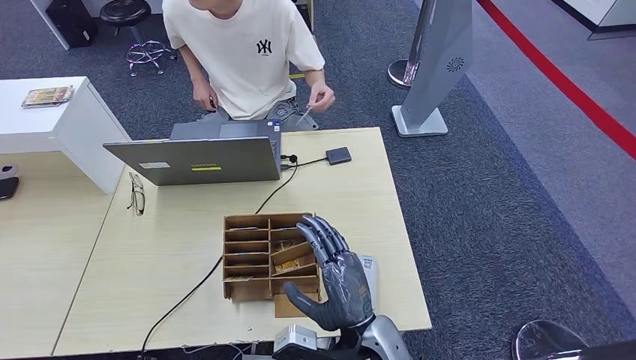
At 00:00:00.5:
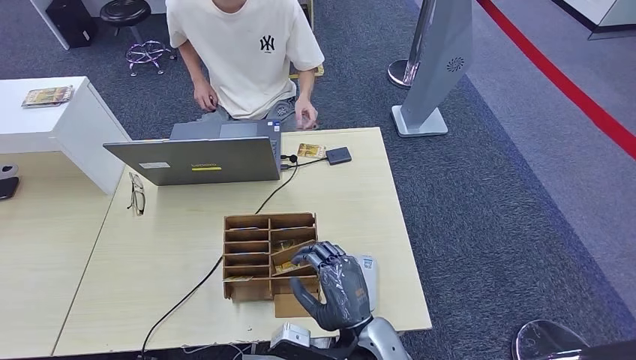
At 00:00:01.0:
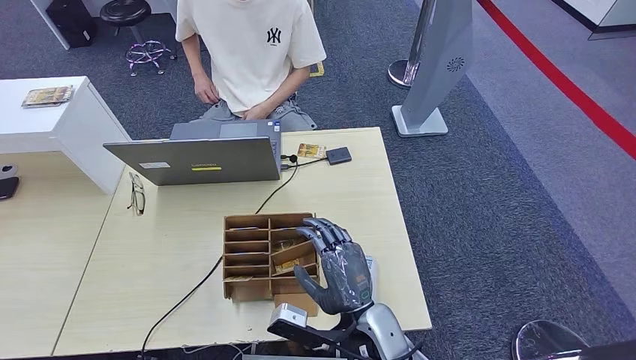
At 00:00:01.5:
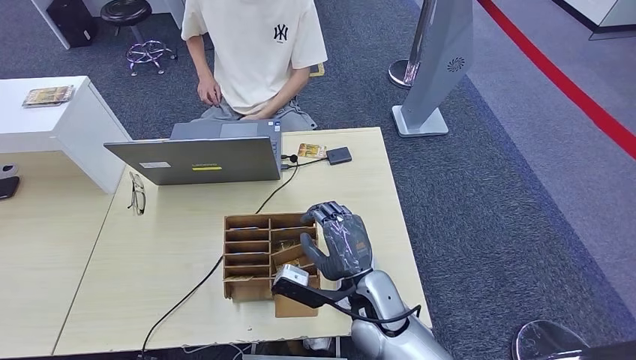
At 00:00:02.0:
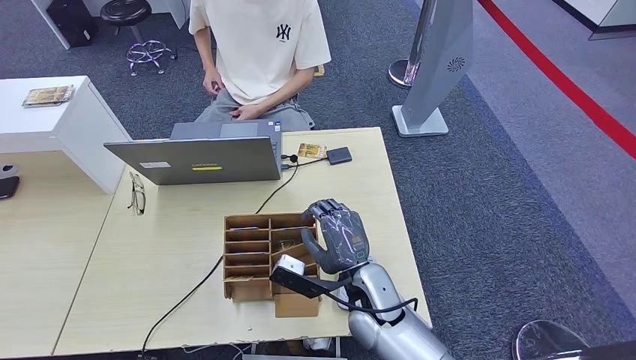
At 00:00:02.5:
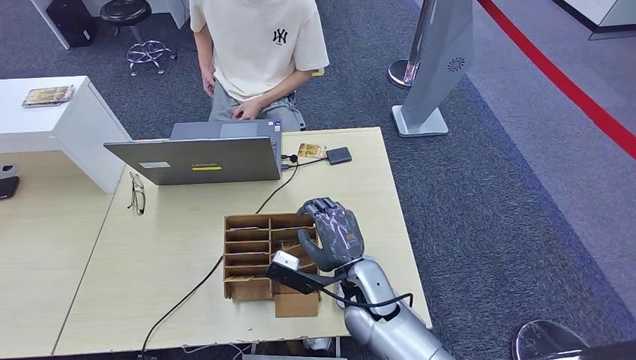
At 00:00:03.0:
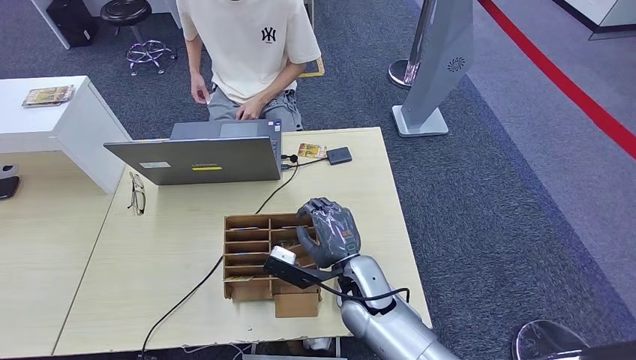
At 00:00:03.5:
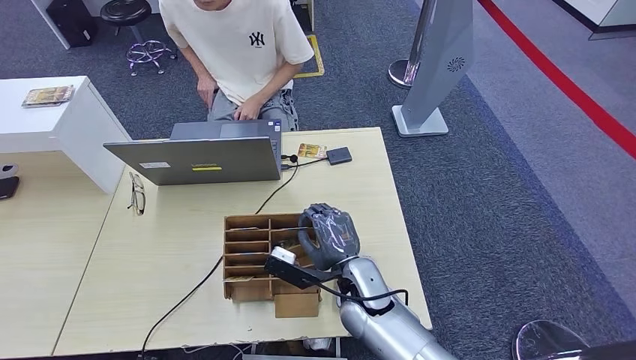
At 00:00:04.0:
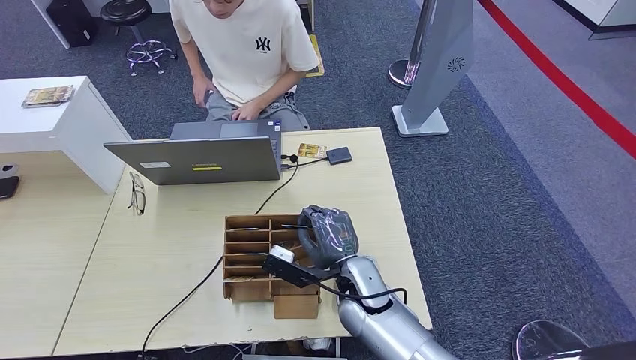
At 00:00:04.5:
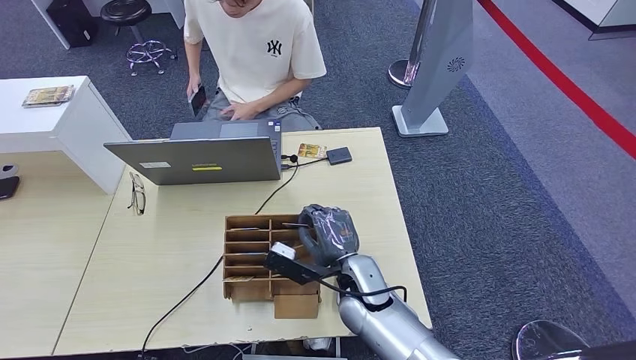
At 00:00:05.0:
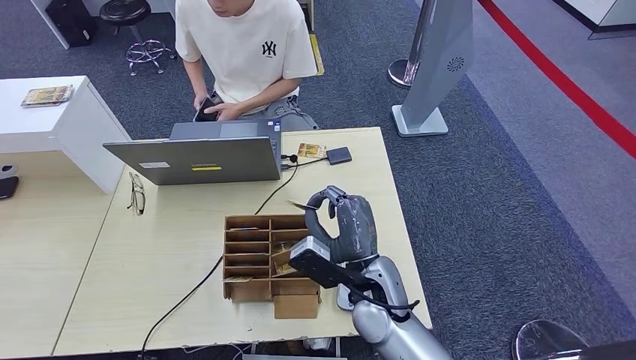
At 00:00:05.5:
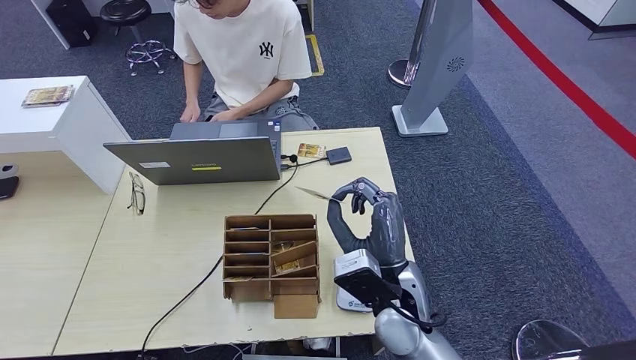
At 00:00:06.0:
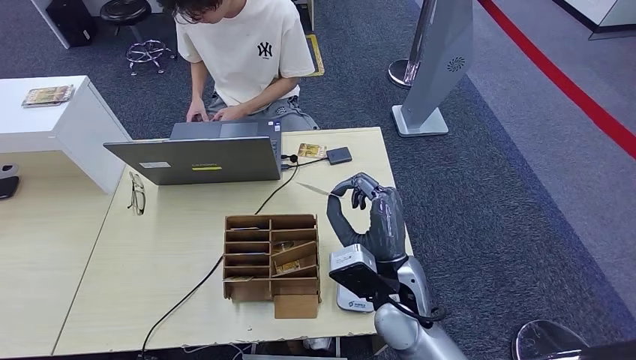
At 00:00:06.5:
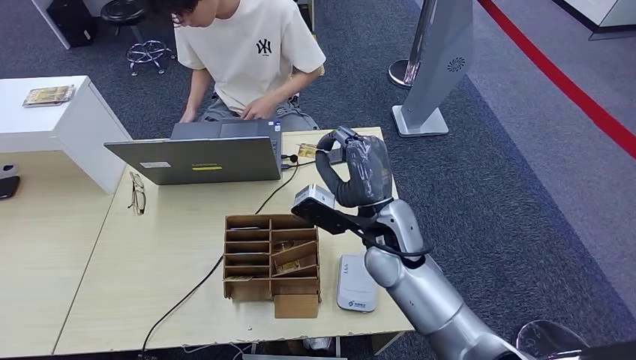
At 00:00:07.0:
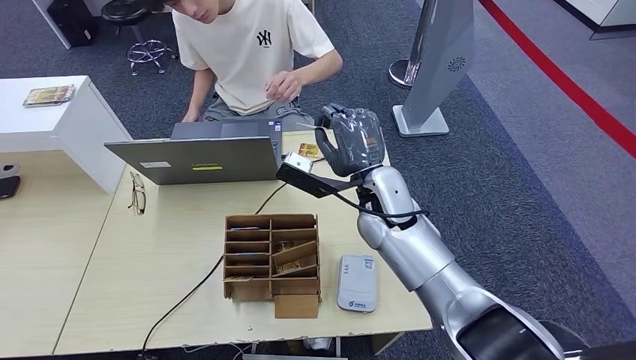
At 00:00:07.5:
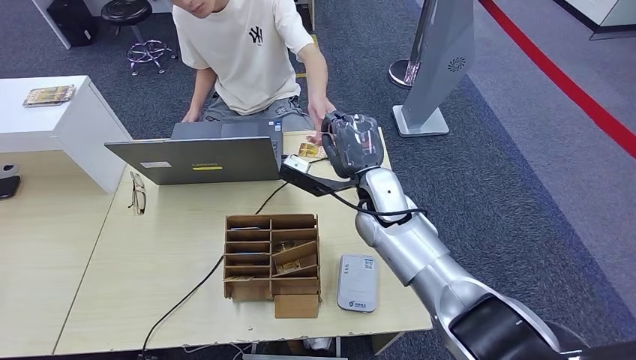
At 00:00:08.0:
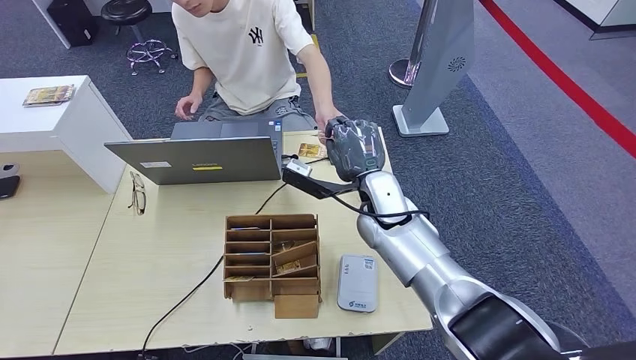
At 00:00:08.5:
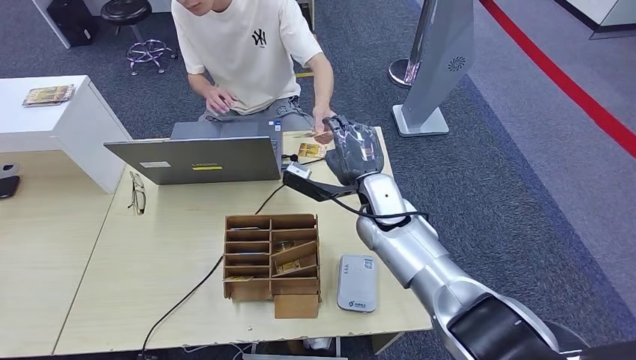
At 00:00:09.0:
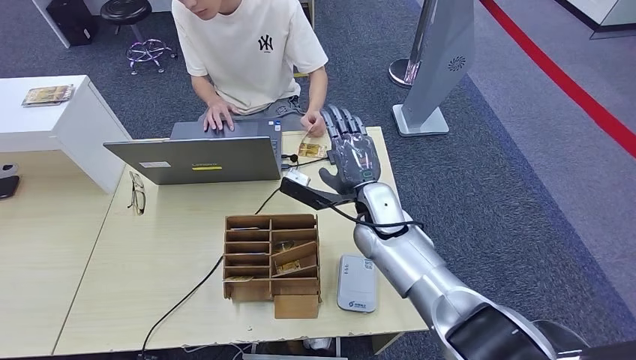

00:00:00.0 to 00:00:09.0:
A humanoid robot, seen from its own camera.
Step, 00:00:03.0 to 00:00:05.5: Pick up the room key from the key card box.
Step, 00:00:06.5 to 00:00:09.0: Hand the room key to the person.
00:00:00.0 to 00:00:02.0: The right hand is displaced forward by approximately 10 cm.
00:00:02.0 to 00:00:04.5: There are only small adjustments of the hands.
00:00:04.5 to 00:00:07.0: The right hand moves upward and forward, about 15 cm.
00:00:07.0 to 00:00:09.0: The right hand heads downward, covering roughly 5 cm.

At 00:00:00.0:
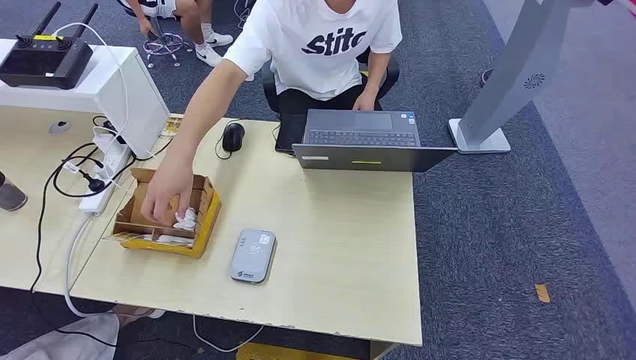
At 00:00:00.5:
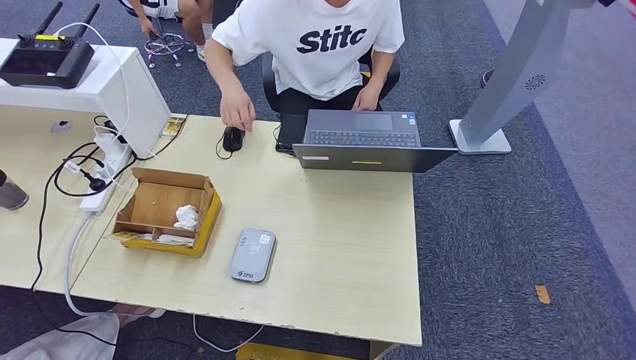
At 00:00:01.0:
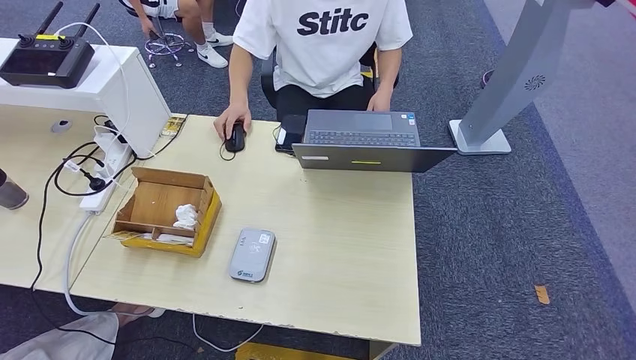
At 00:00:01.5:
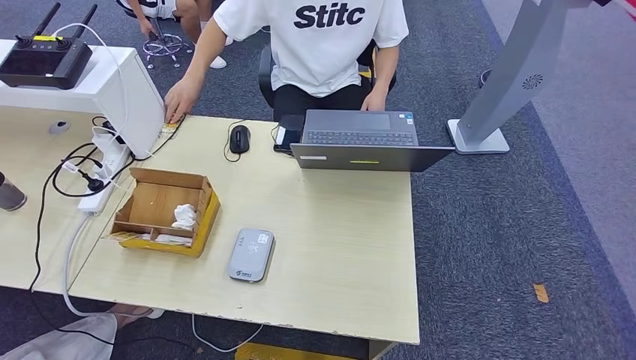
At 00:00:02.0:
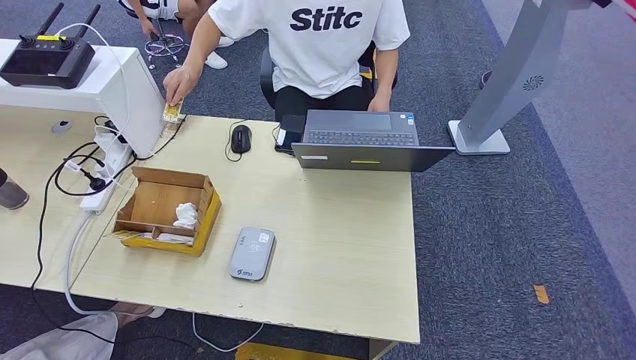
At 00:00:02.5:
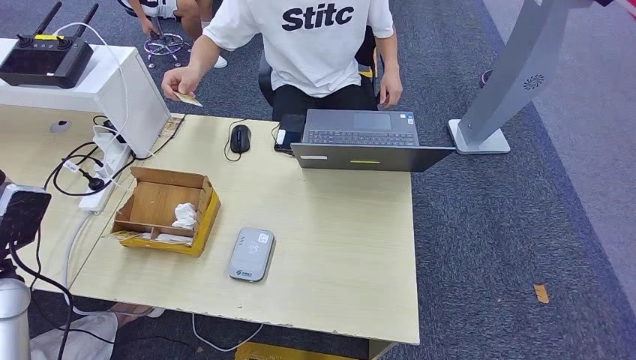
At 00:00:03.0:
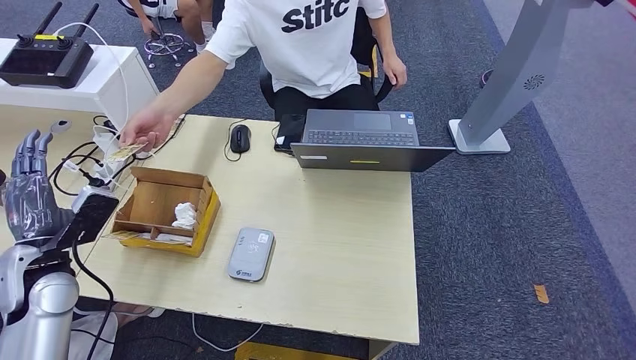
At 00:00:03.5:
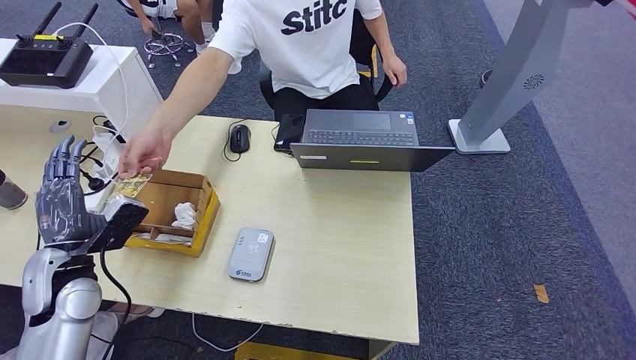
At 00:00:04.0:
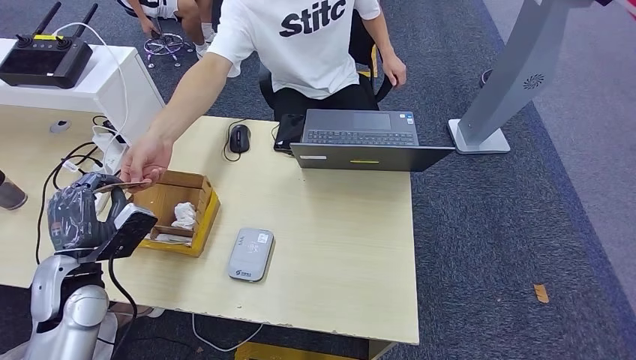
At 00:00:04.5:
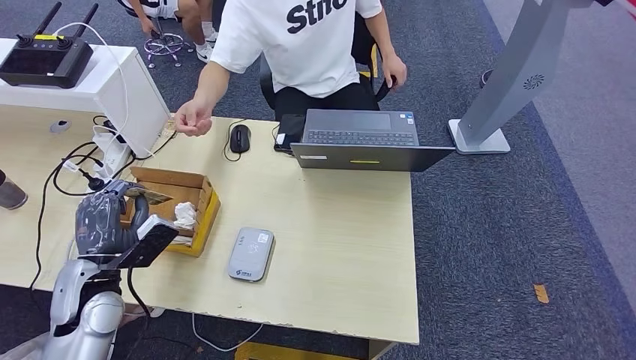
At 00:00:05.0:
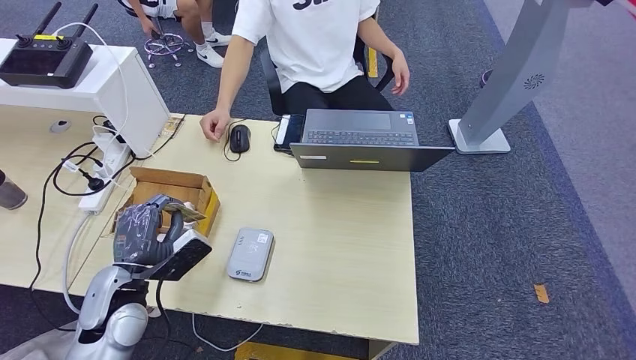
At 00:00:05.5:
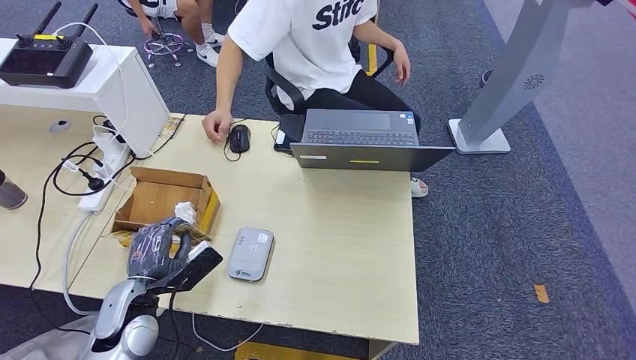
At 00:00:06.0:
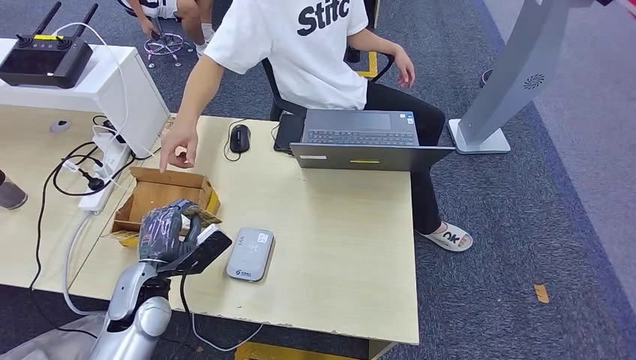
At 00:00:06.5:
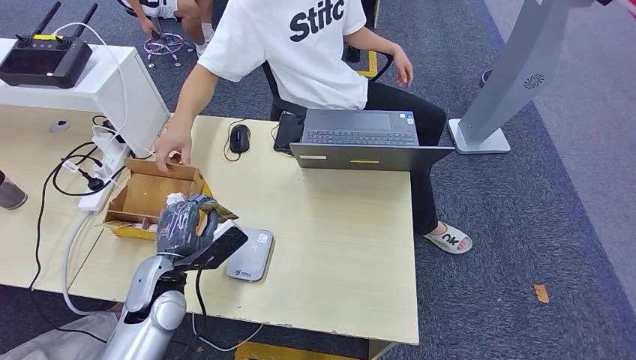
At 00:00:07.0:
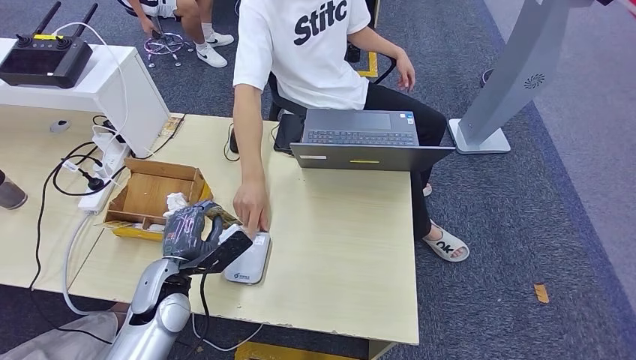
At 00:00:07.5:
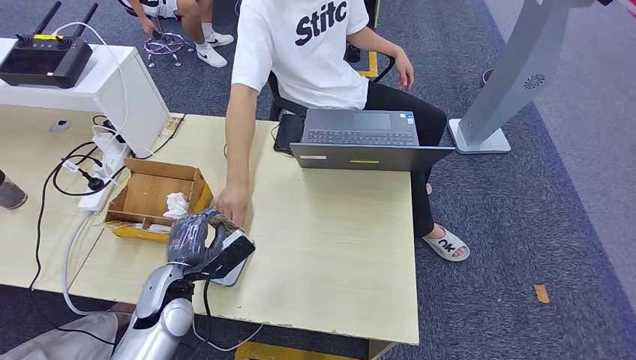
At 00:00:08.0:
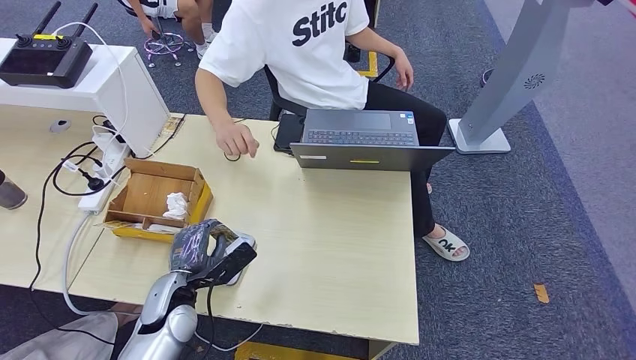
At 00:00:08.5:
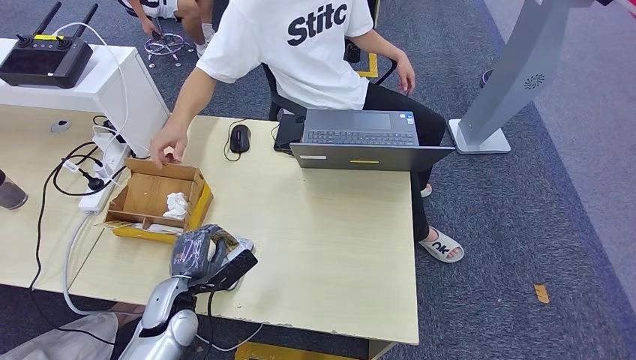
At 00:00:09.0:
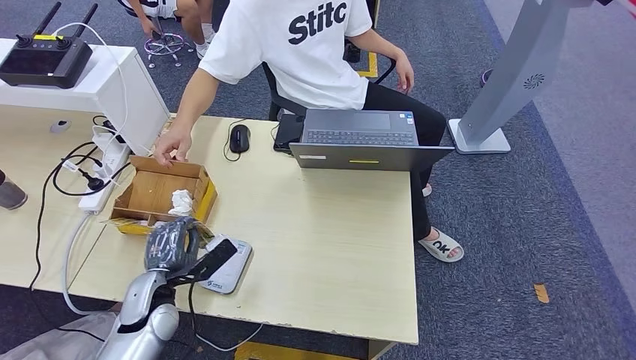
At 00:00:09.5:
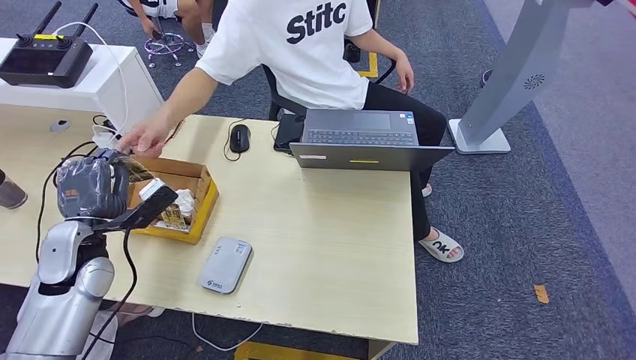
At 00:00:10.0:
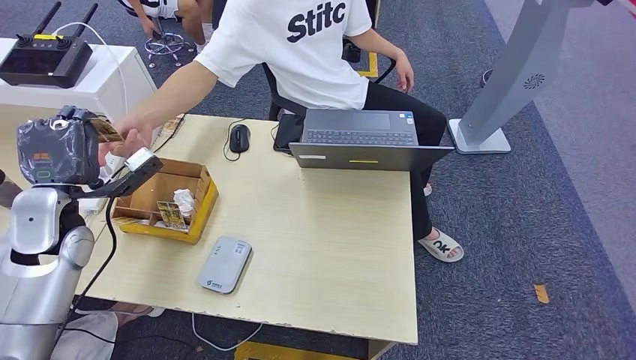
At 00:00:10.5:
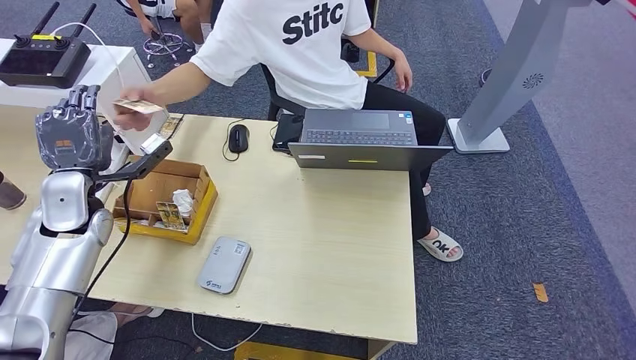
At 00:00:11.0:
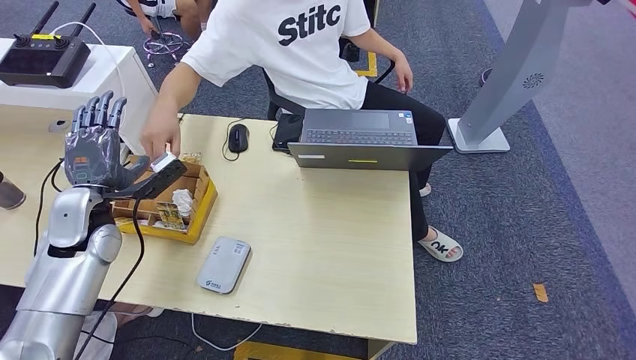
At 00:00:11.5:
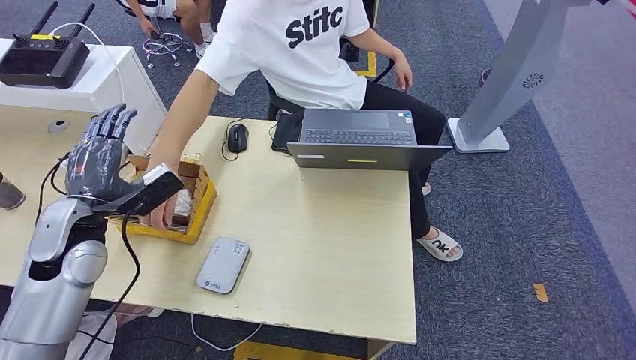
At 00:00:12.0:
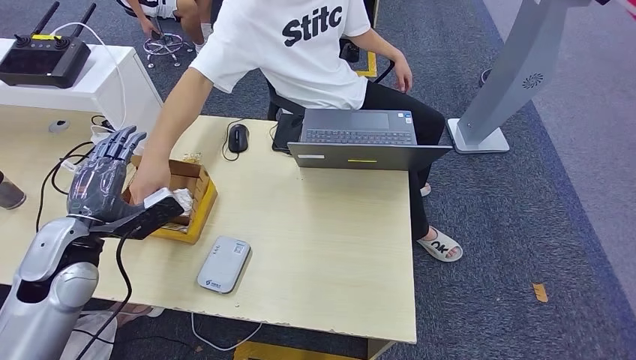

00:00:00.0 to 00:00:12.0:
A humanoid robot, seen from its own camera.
Step, 00:00:00.0 to 00:00:04.0: Take the ID card from the person's hand.
Step, 00:00:04.5 to 00:00:08.0: Place the ID card on the card reader.
Step, 00:00:08.5 to 00:00:10.5: Hand the ID card to the person.
00:00:02.0 to 00:00:04.0: The left hand moves to the right and forward, roughly 25 cm.
00:00:04.0 to 00:00:06.0: The left hand heads to the right and downward, covering roughly 10 cm.
00:00:06.0 to 00:00:08.0: The left hand ends up approximately 5 cm from where it was.
00:00:08.0 to 00:00:10.0: The left hand shifts about 25 cm upward, to the left and forward.
00:00:10.0 to 00:00:12.0: The left hand moves about 5 cm.
